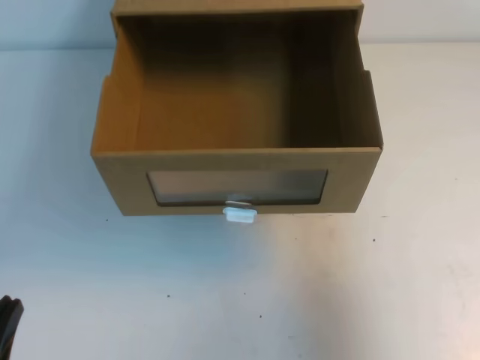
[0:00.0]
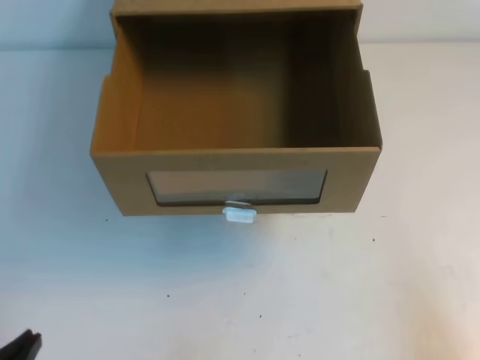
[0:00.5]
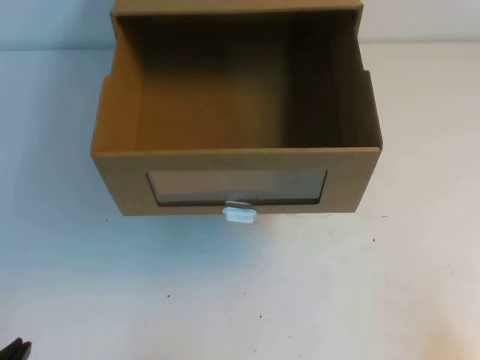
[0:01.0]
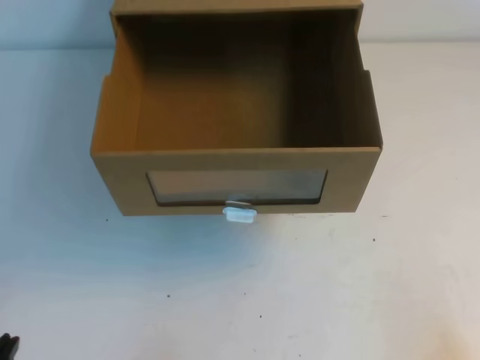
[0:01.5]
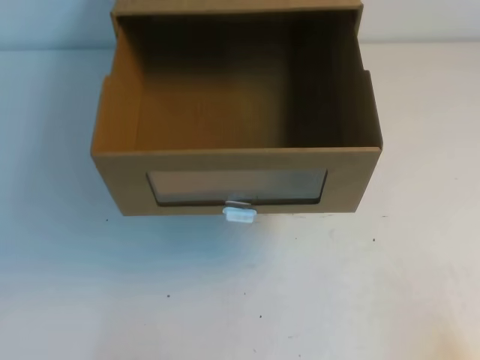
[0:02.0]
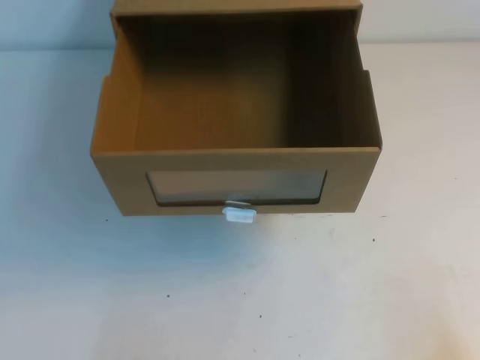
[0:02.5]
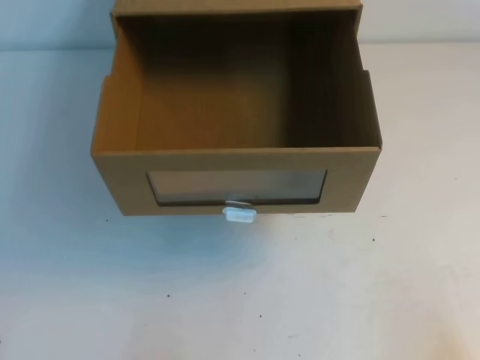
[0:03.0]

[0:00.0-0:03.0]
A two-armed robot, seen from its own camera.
Task of the whole recording: open the shoebox on the table.
Step, 0:00.0 to 0:03.0: Open the shoe box.
0:00.0 to 0:01.5: The right gripper heads downward and backward, covering about 20 cm.
